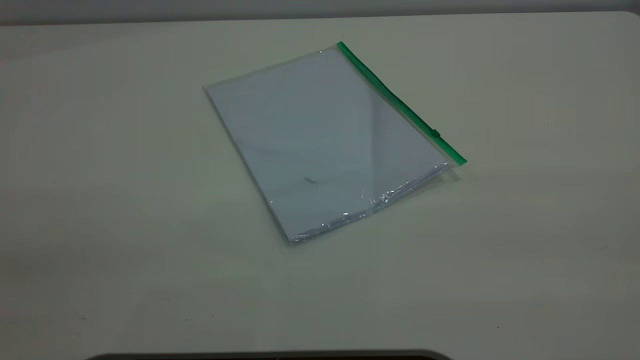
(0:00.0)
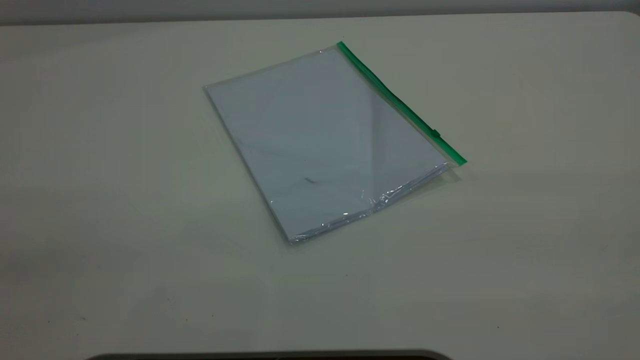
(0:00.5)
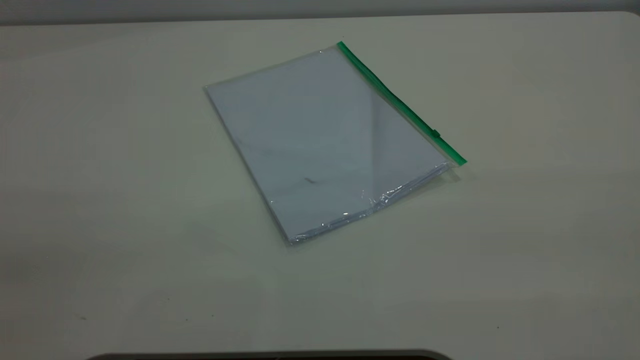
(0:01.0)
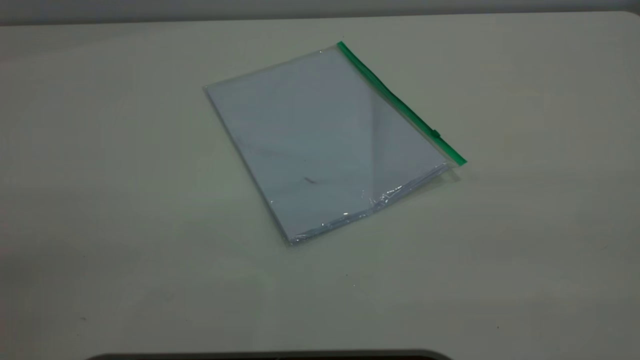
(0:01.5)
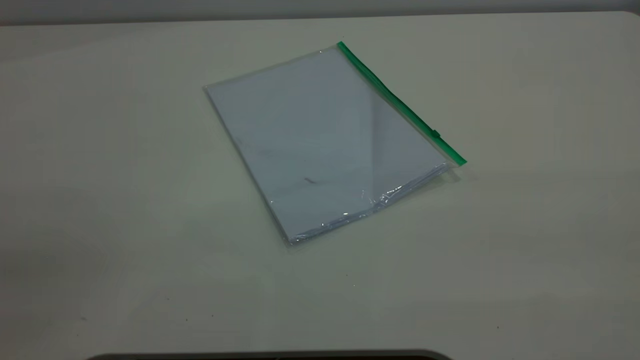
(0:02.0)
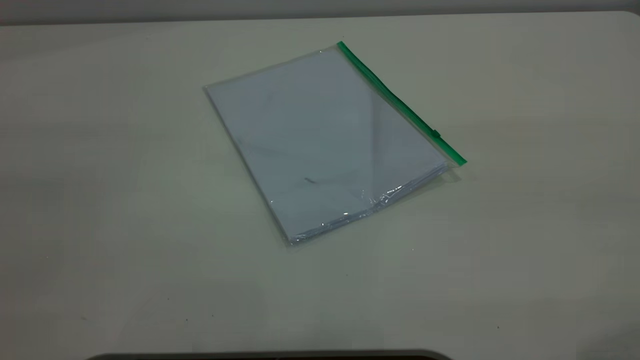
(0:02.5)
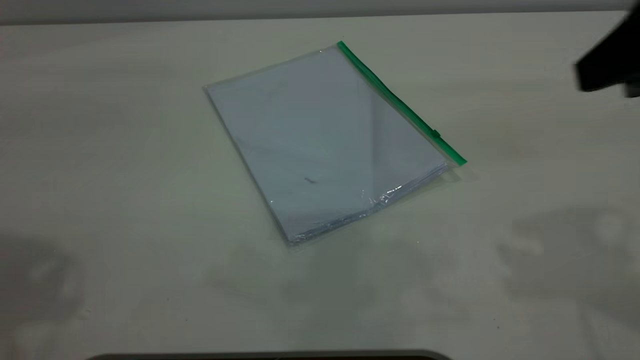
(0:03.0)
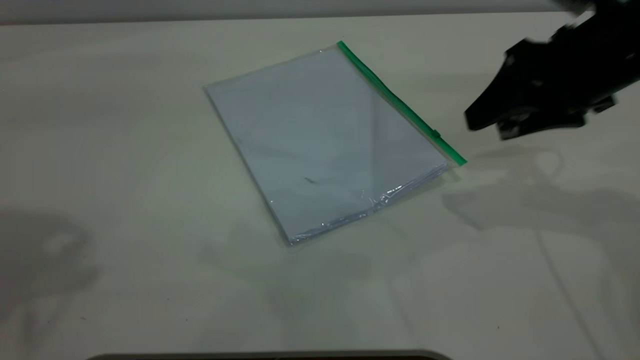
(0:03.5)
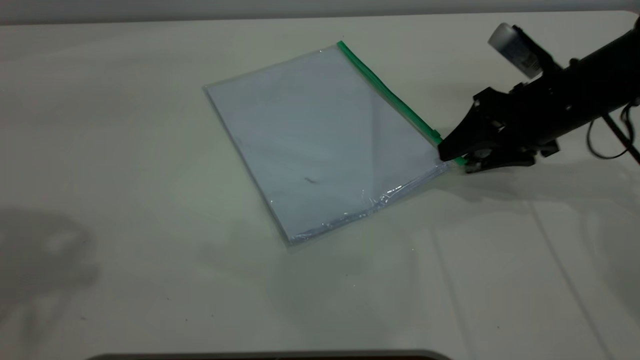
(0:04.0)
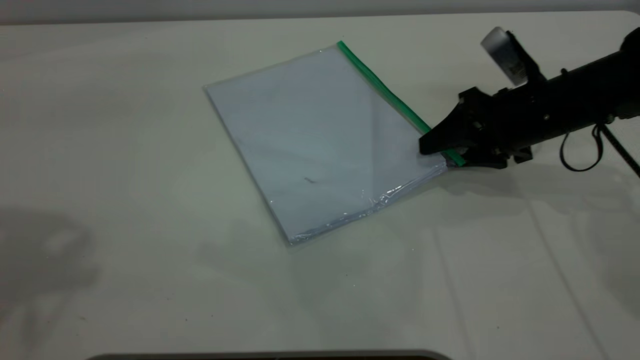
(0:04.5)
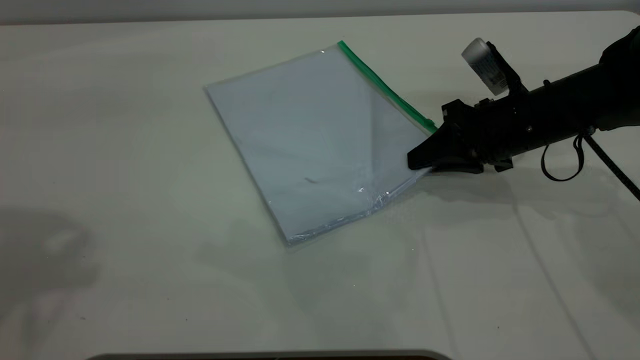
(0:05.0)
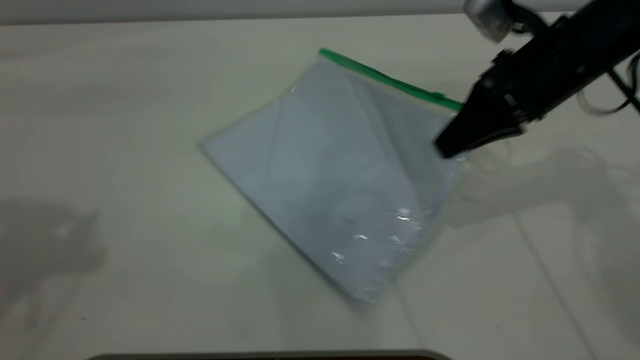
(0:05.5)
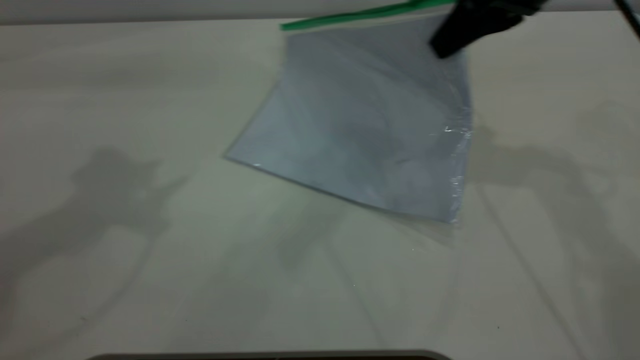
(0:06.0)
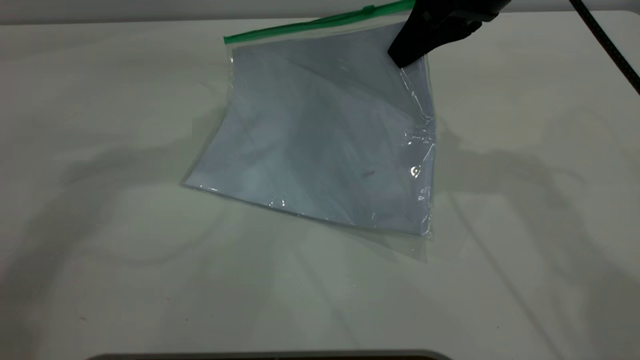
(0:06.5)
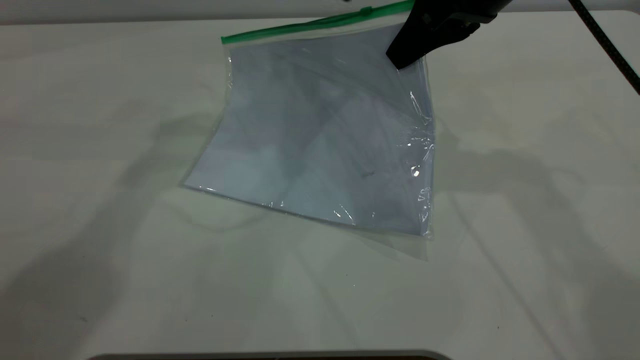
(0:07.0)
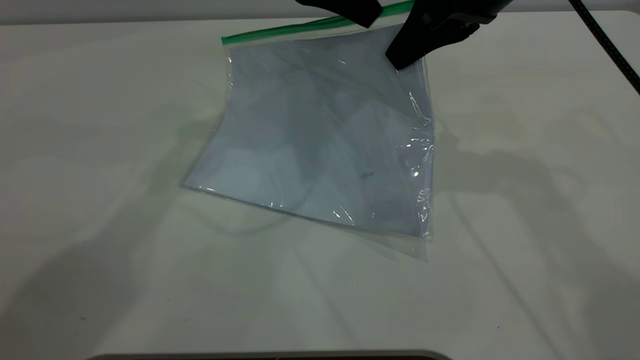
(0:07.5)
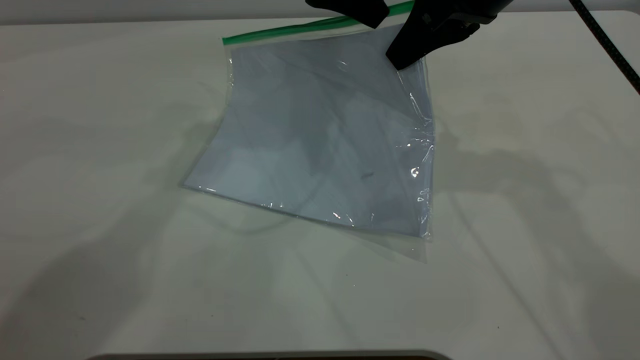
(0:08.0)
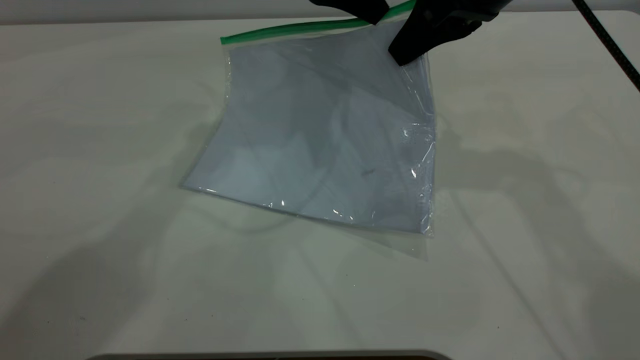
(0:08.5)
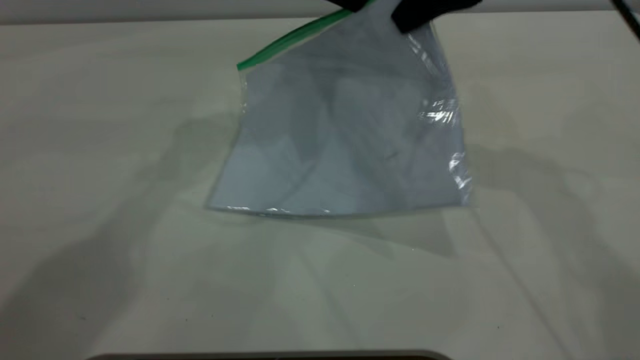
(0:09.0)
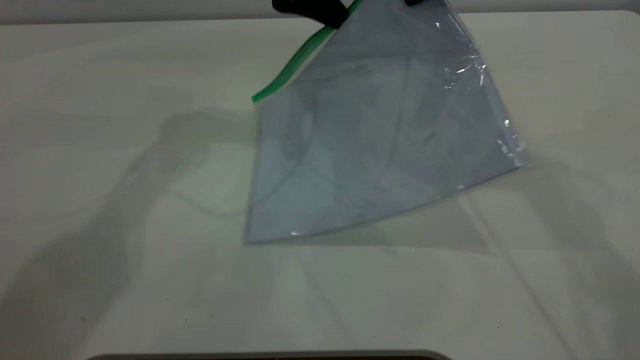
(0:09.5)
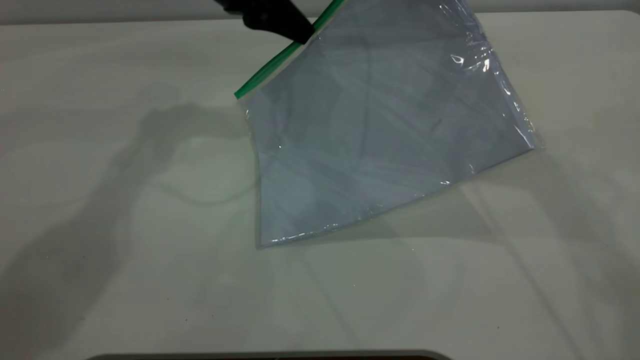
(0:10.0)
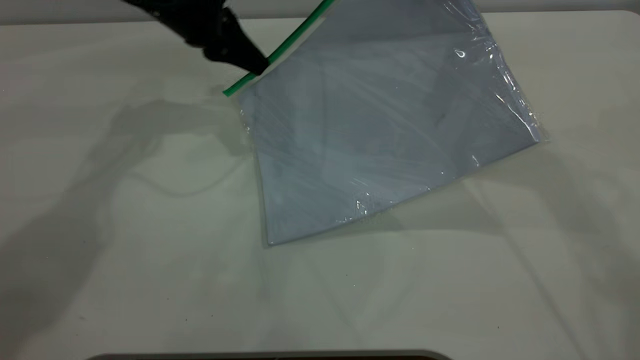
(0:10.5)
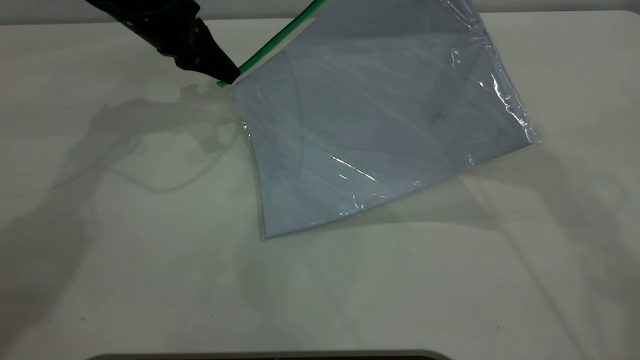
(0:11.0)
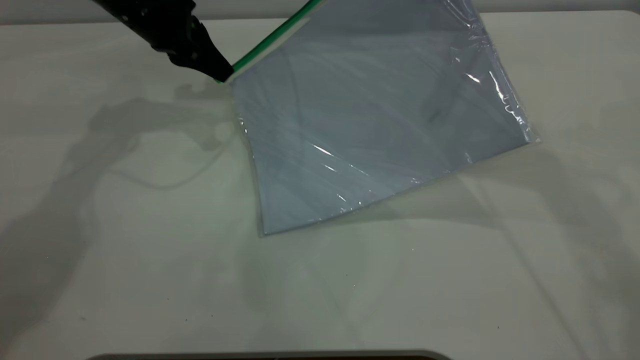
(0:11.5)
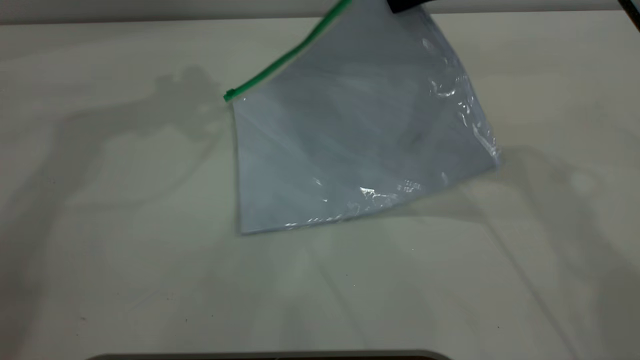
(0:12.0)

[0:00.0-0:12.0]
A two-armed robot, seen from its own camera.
Step, 0:00.0 to 0:05.5: Pick up the transparent plastic bag with the right gripper.
Step, 0:06.0 to 0:11.5: Pulling up the zipper on the transparent plastic bag with the left gripper to close it.
0:00.0 to 0:02.0: The two grippers keep their place.
0:02.0 to 0:04.0: The right gripper heads forward and downward, covering roughly 50 cm.
0:04.0 to 0:06.0: The left gripper travels forward by about 10 cm. Meanwhile the right gripper heads upward and to the left, covering roughly 15 cm, and closes its fingers.
0:06.0 to 0:08.0: The left gripper travels to the right, forward and downward by roughly 25 cm, and closes its fingers.
0:08.0 to 0:10.0: The right gripper moves upward, about 5 cm. The left gripper travels to the left and downward by some 10 cm, and closes its fingers.
0:10.0 to 0:12.0: The left gripper goes about 20 cm upward and to the left, and opens its fingers.

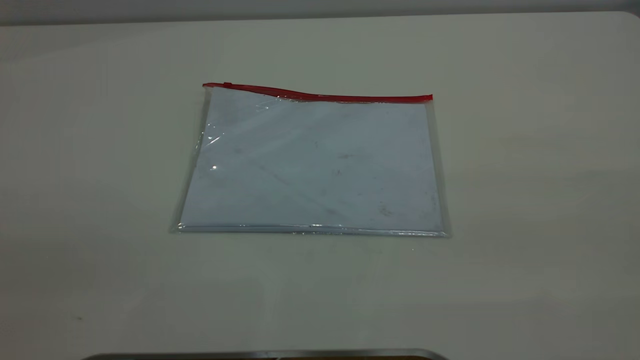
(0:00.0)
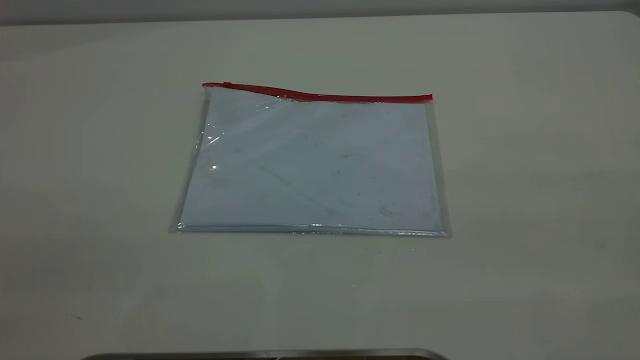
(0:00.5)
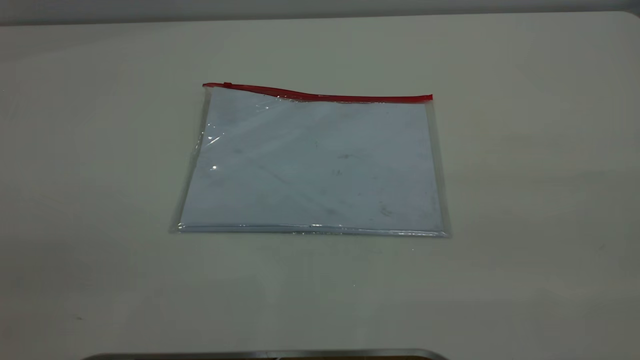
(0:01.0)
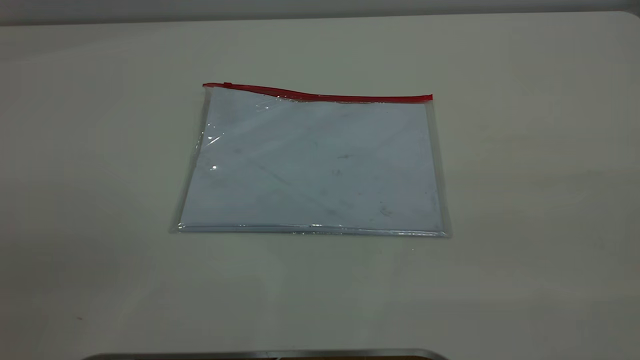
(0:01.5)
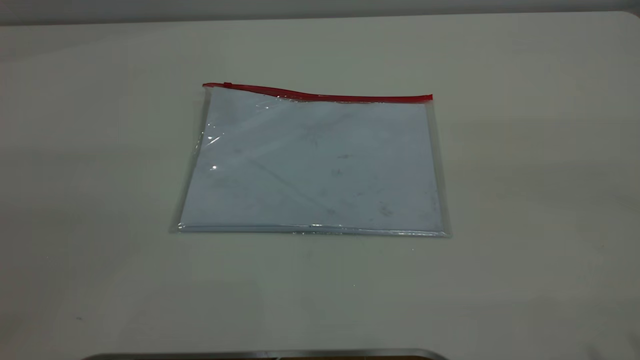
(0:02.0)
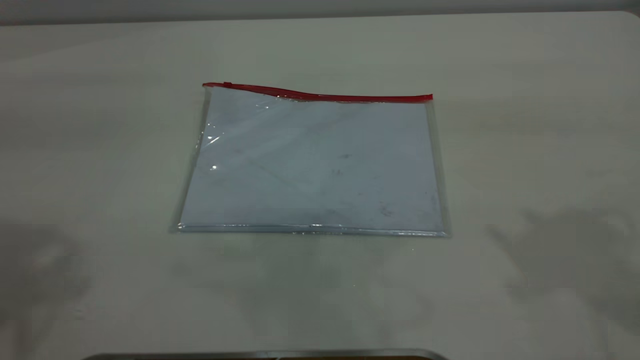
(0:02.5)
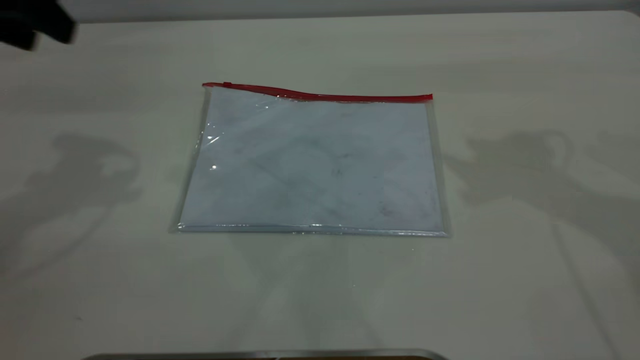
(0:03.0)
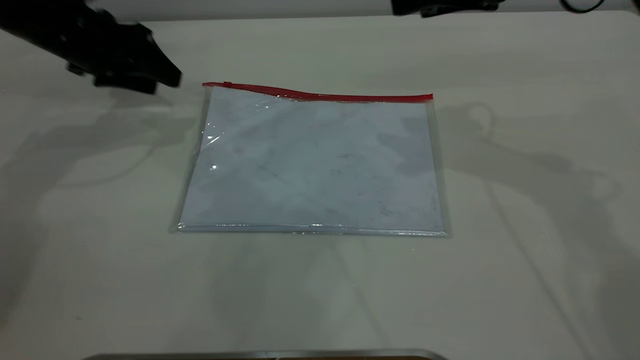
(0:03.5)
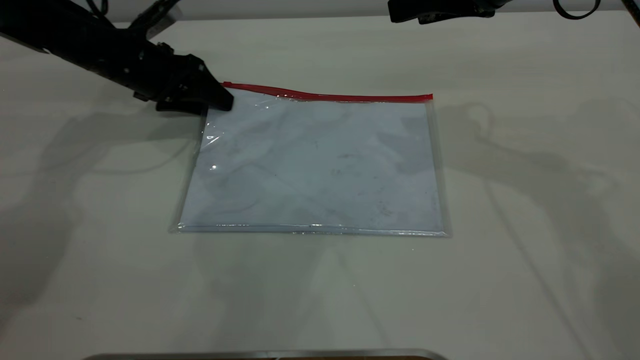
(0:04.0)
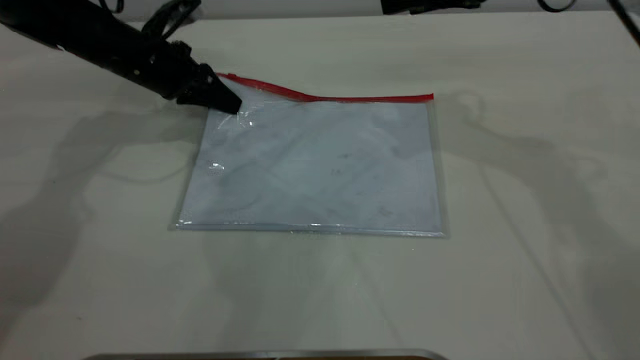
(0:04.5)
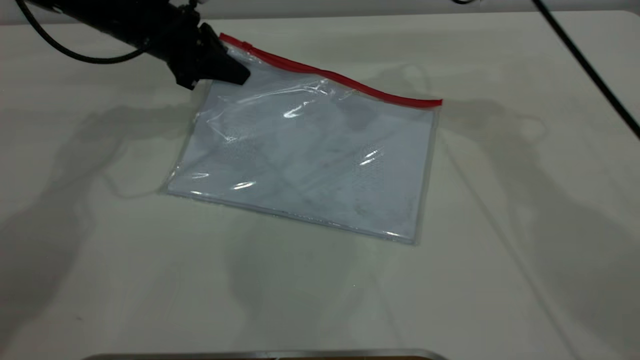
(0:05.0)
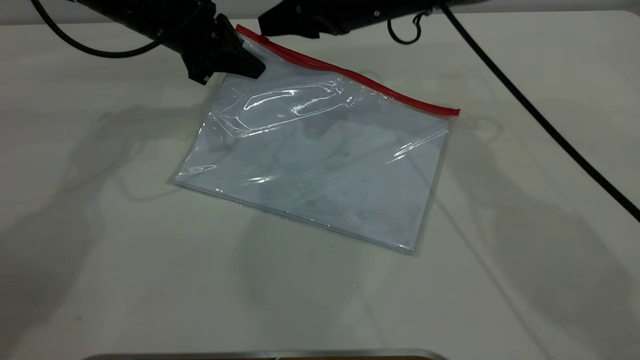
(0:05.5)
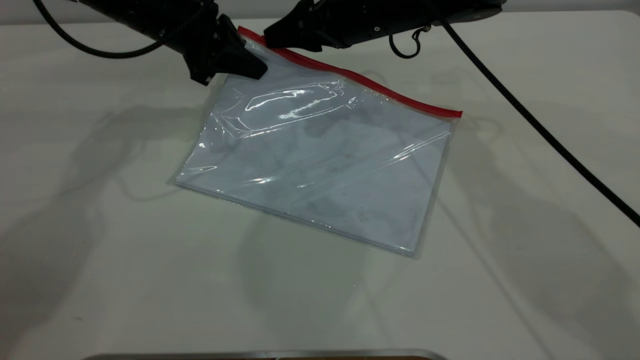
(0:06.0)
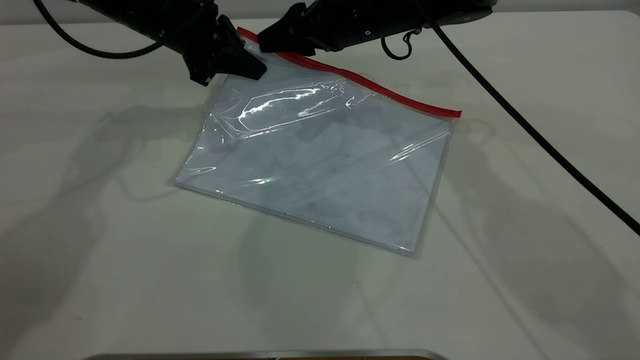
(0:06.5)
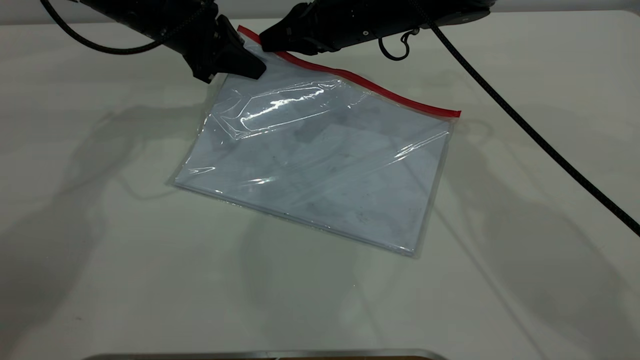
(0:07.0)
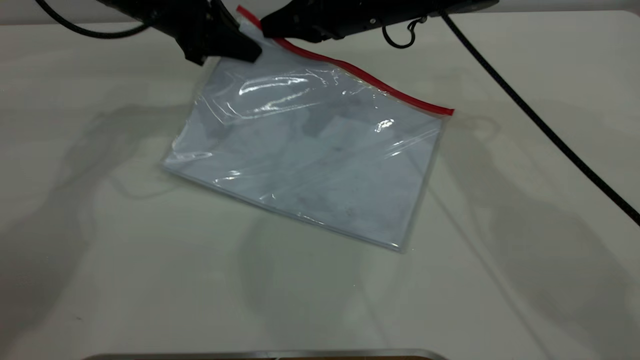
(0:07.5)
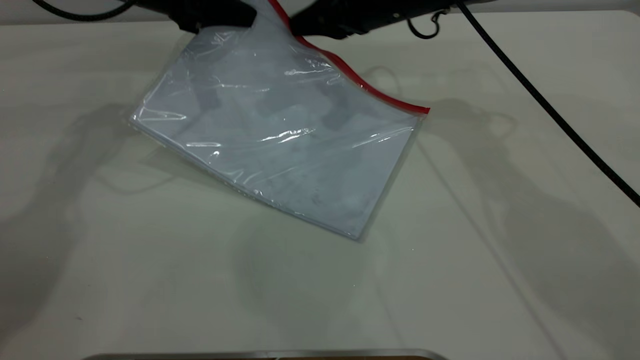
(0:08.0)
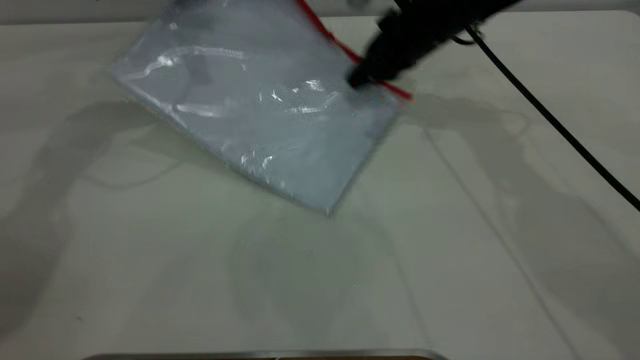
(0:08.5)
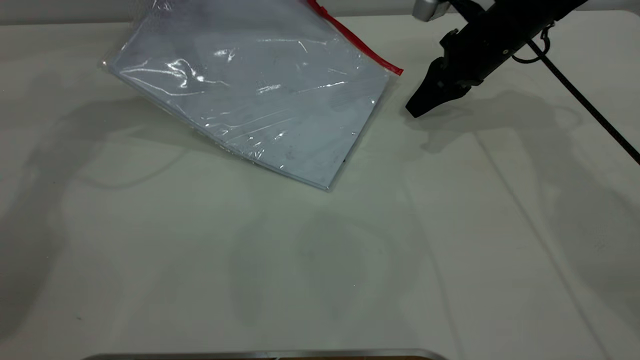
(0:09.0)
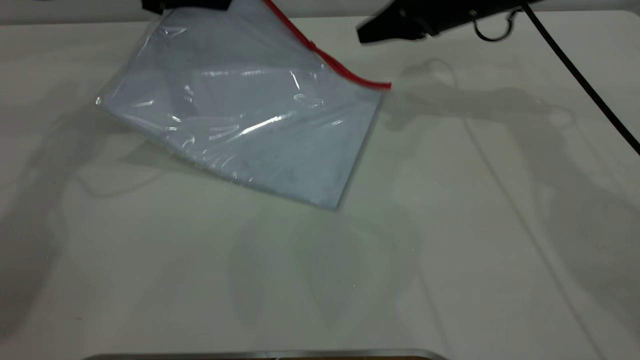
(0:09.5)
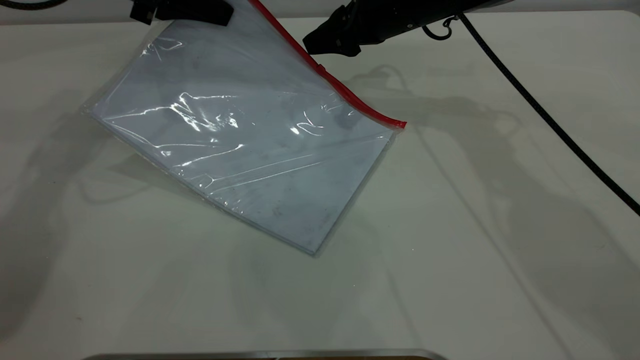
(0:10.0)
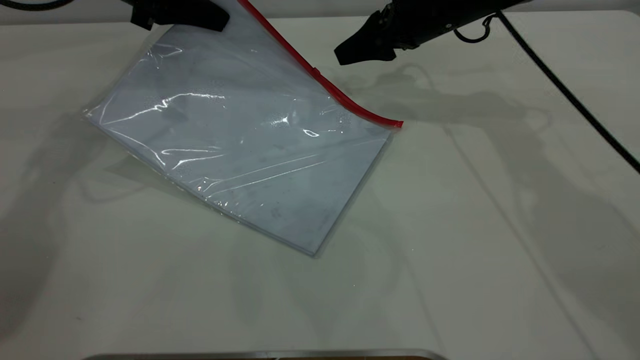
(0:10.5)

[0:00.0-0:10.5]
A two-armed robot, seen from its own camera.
Step, 0:00.0 to 0:04.5: Pick up the transparent plastic bag with the left gripper.
0:02.0 to 0:04.0: The left gripper shifts approximately 50 cm forward and downward. Meanwhile the right gripper shifts approximately 35 cm forward and downward.
0:04.0 to 0:06.5: The right gripper travels to the left, downward and forward by roughly 20 cm; the left gripper travels upward and to the right by approximately 10 cm, and closes its fingers.
0:06.5 to 0:08.5: The right gripper is displaced to the right by about 10 cm, and closes up. The left gripper is displaced upward by roughly 5 cm.
0:08.5 to 0:10.5: The right gripper travels to the right and back again, roughly 5 cm each way, and opens up.
